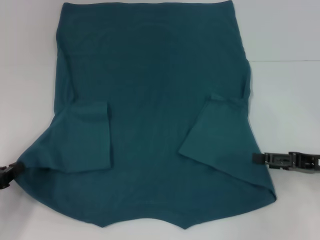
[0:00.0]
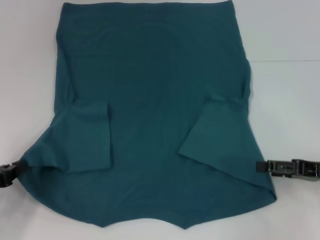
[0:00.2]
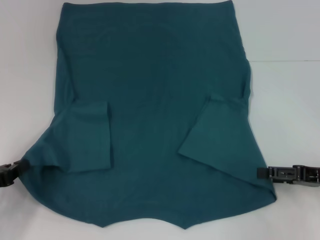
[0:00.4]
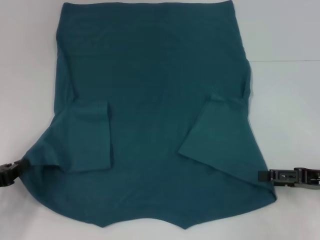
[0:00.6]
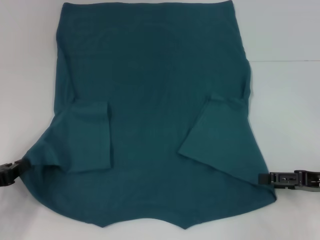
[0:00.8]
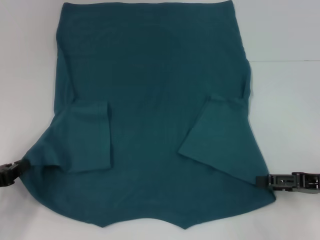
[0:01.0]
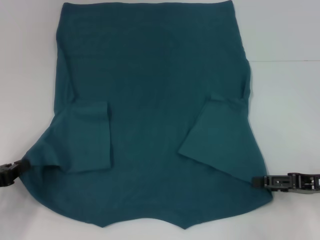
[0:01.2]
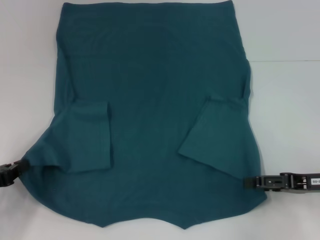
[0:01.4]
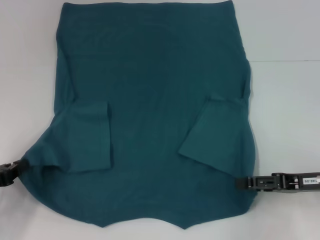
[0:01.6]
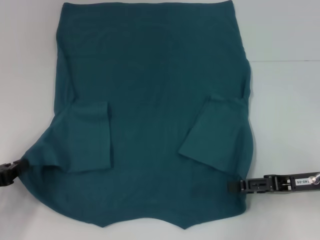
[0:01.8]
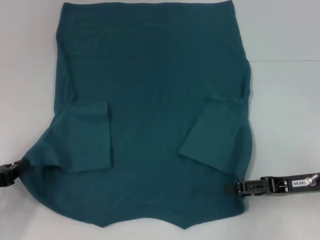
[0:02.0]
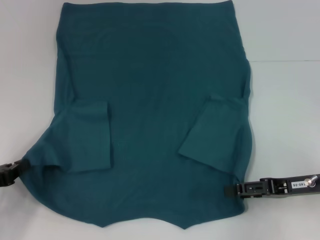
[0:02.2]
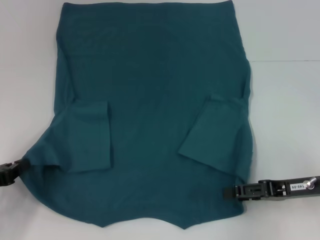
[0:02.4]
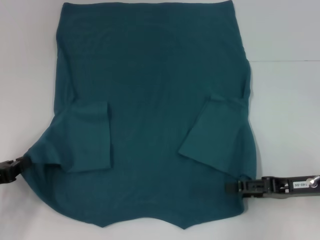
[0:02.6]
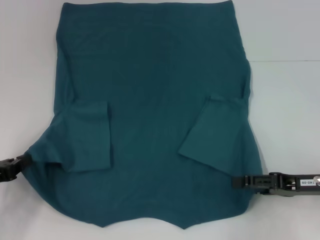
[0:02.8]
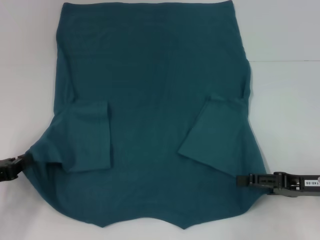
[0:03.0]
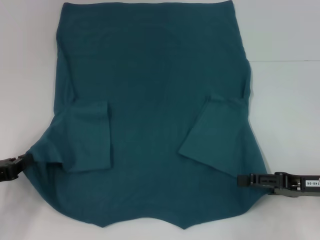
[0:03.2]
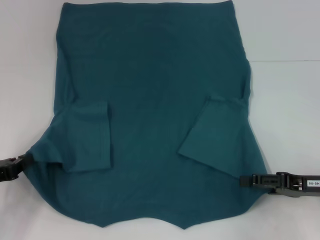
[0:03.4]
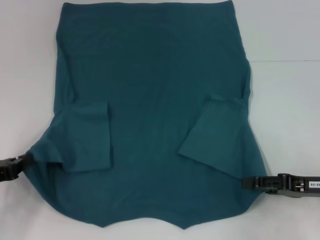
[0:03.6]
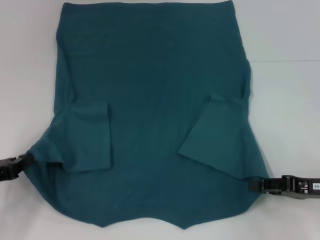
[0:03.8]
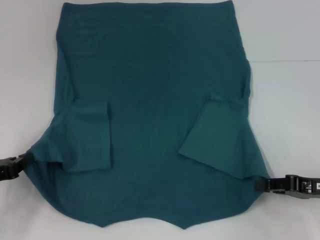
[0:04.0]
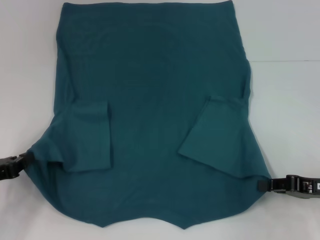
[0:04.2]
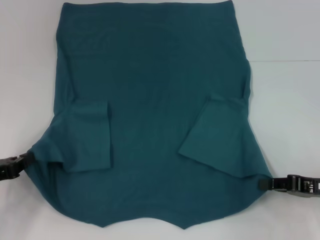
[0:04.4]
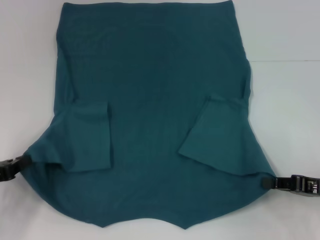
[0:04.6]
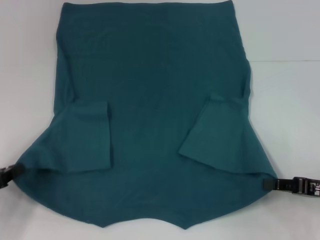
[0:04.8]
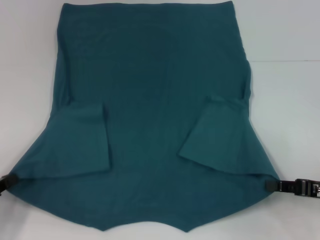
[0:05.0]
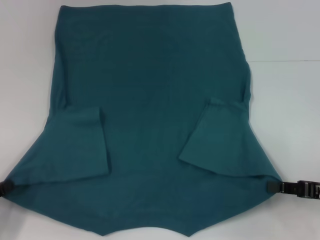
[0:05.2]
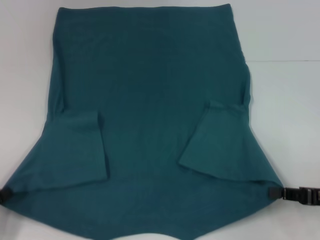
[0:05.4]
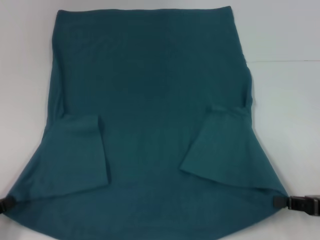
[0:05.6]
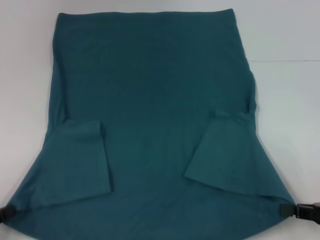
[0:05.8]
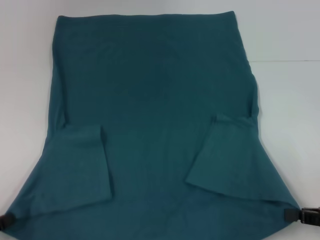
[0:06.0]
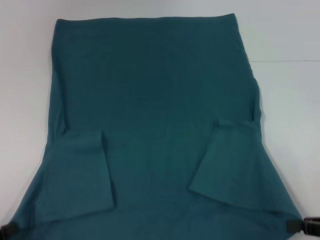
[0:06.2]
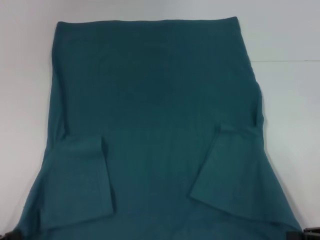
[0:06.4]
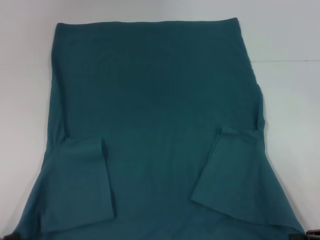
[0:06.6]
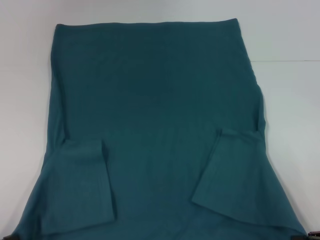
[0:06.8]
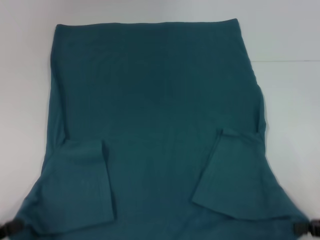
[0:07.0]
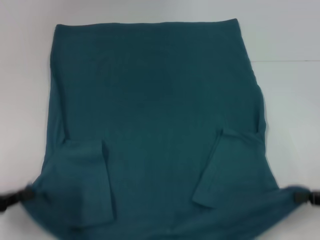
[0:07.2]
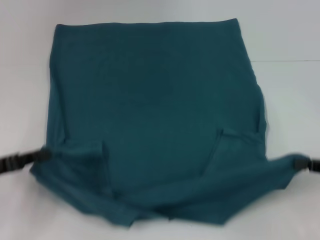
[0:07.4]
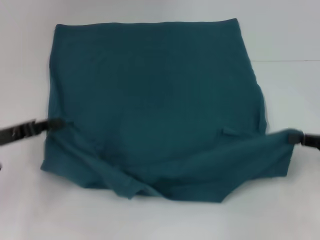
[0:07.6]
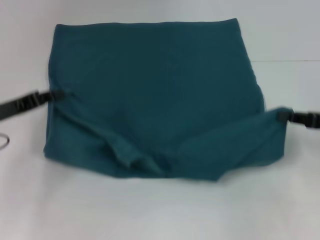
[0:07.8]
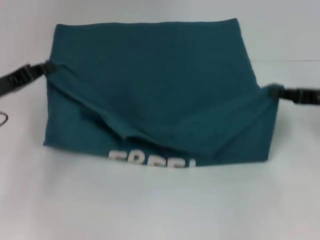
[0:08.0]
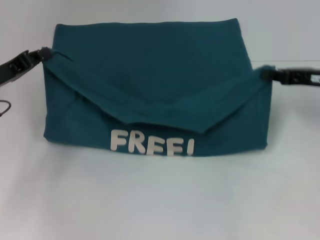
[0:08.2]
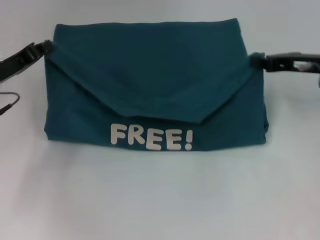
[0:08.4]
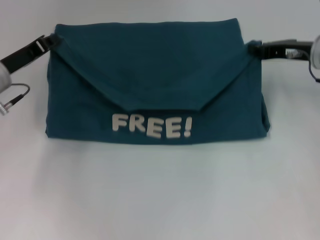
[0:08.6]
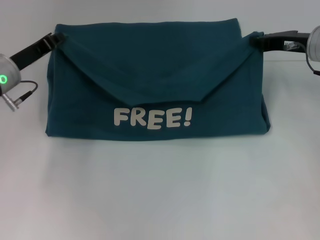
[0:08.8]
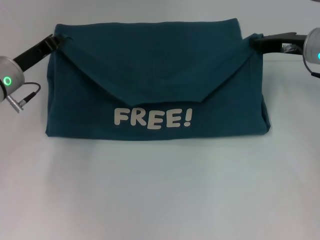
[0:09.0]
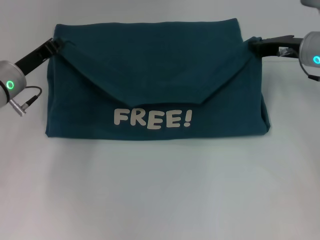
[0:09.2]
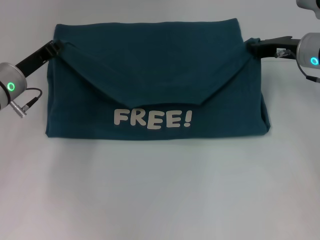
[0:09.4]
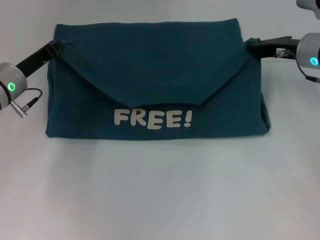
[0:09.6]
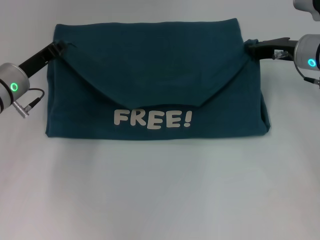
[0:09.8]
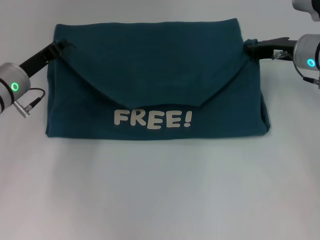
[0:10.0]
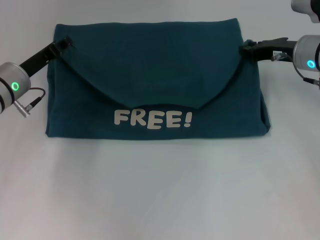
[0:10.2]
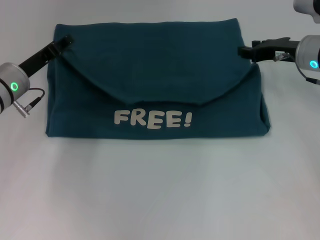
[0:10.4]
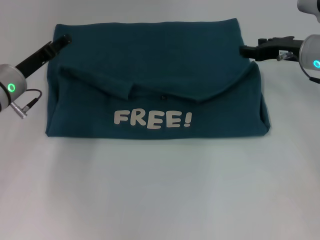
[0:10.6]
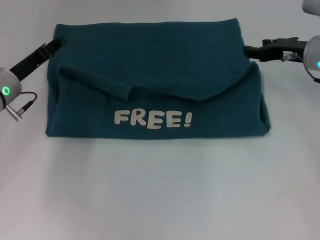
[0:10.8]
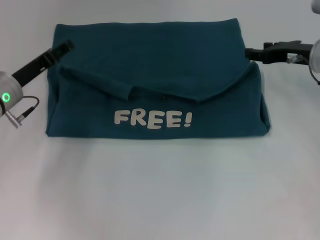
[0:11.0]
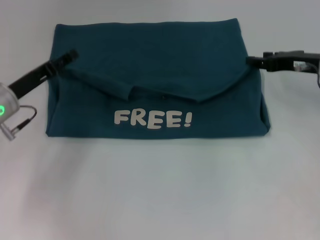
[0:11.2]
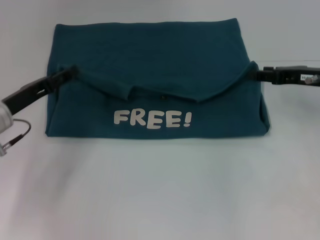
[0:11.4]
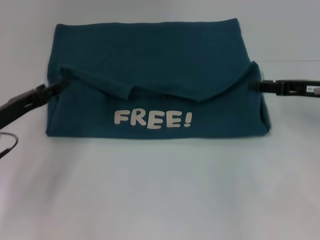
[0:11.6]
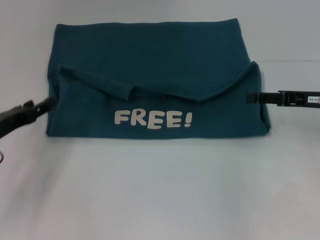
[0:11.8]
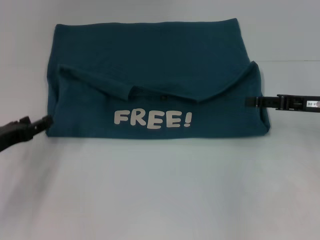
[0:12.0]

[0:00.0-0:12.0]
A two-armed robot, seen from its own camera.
Step, 0:00.0 to 0:04.6: Grab the bottom right corner with your right hand.
Step, 0:04.8 to 0:10.6: Fold the clothes to the left.
Step, 0:04.8 to 0:10.6: Fold the clothes to the right.
0:00.0 to 0:03.0: The grippers make only small movements.
0:03.0 to 0:04.4: The right gripper closes.
0:04.4 to 0:06.0: The left gripper heads backward, covering some 10 cm. Meanwhile the right gripper moves roughly 5 cm.
0:06.0 to 0:07.6: The left gripper moves forward, about 15 cm; the right gripper travels forward by about 5 cm.
0:07.6 to 0:09.0: The right gripper is displaced forward and to the left by roughly 20 cm; the left gripper is displaced forward and to the right by about 10 cm.
0:09.0 to 0:10.4: There are only small adjustments of the grippers.
0:10.4 to 0:12.0: The right gripper heads backward and to the right, covering approximately 10 cm. The left gripper heads backward and to the left, covering approximately 15 cm, and opens.

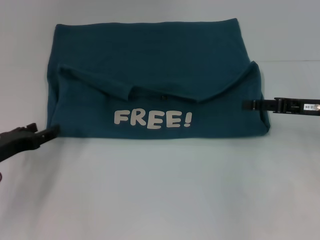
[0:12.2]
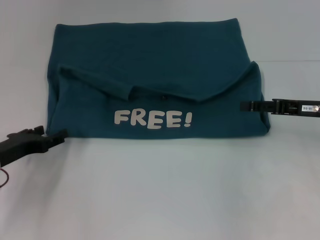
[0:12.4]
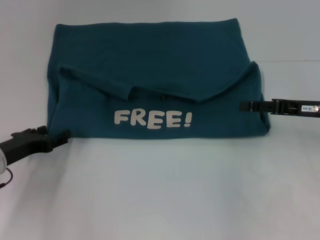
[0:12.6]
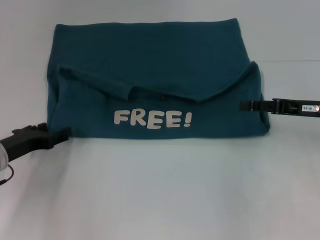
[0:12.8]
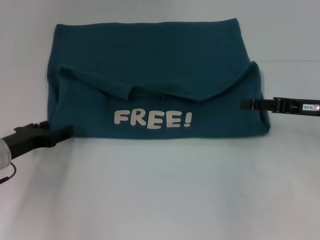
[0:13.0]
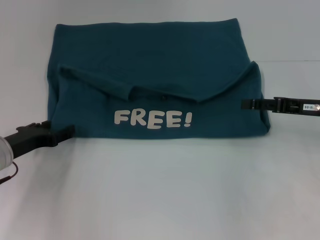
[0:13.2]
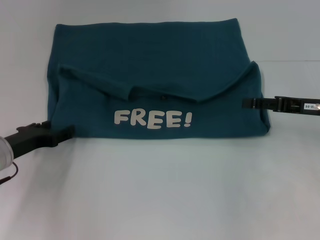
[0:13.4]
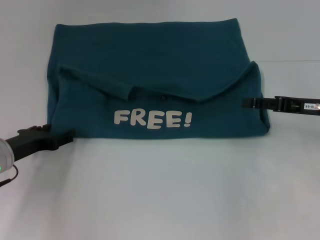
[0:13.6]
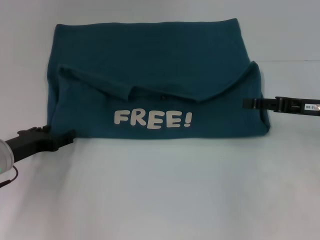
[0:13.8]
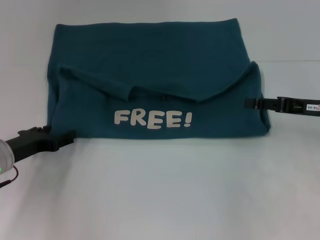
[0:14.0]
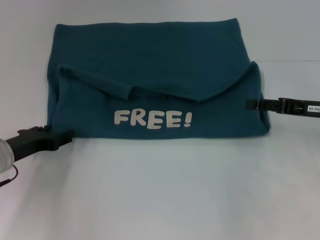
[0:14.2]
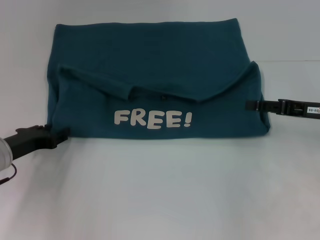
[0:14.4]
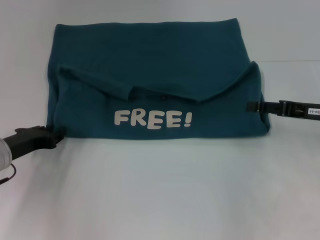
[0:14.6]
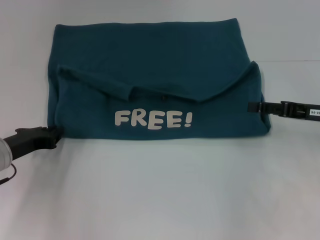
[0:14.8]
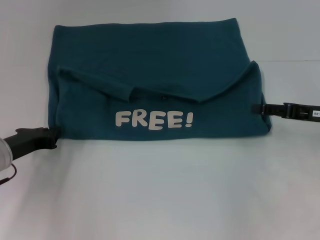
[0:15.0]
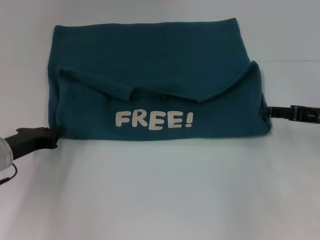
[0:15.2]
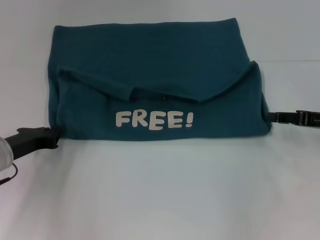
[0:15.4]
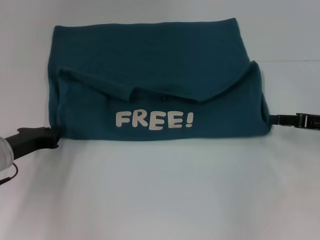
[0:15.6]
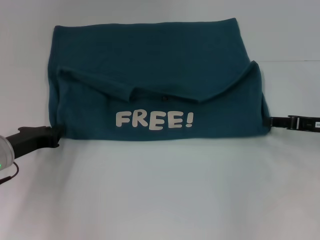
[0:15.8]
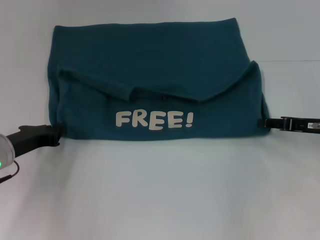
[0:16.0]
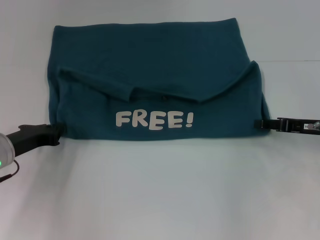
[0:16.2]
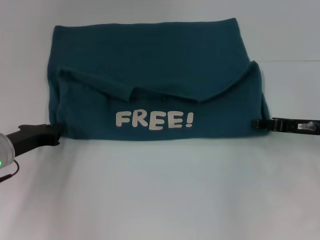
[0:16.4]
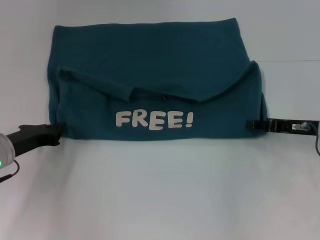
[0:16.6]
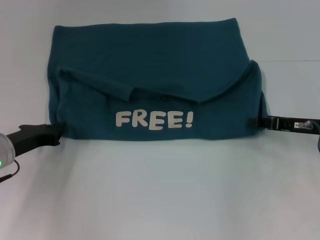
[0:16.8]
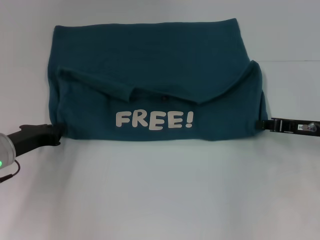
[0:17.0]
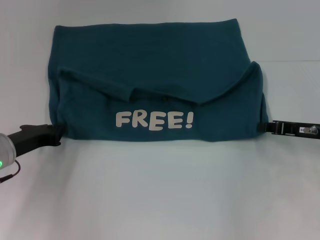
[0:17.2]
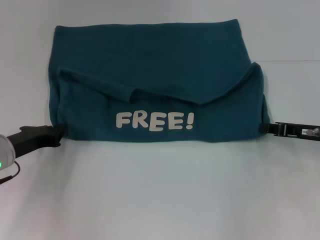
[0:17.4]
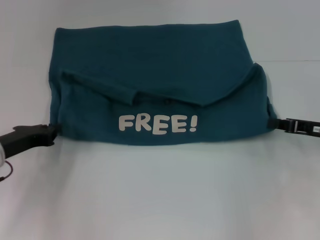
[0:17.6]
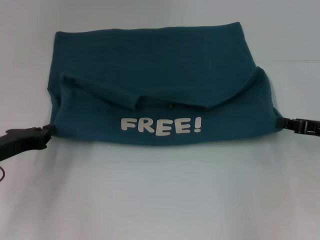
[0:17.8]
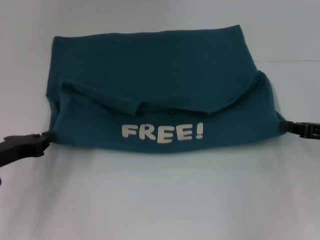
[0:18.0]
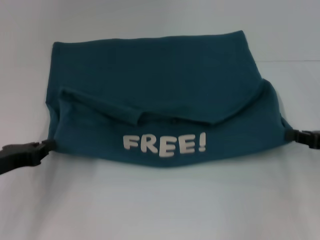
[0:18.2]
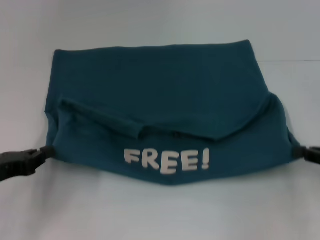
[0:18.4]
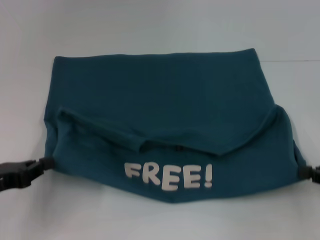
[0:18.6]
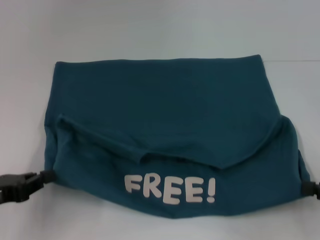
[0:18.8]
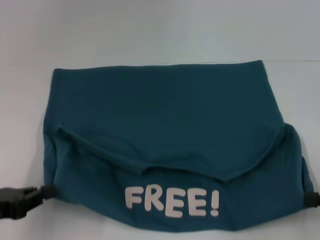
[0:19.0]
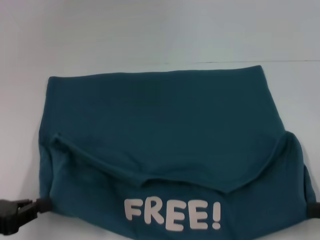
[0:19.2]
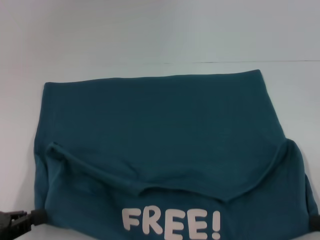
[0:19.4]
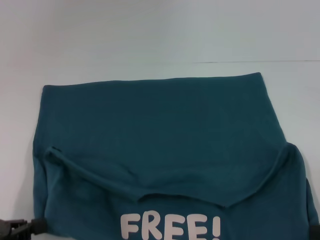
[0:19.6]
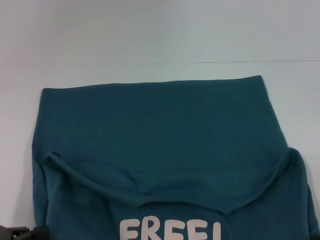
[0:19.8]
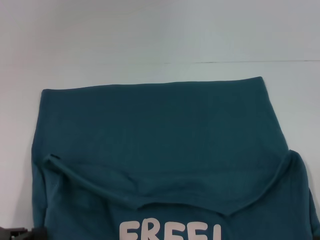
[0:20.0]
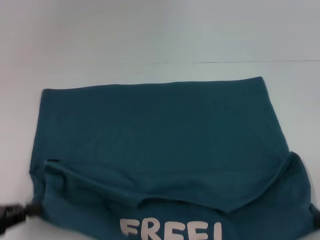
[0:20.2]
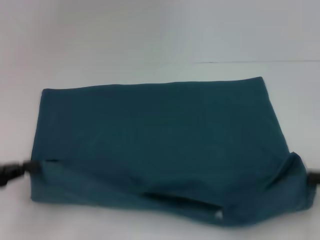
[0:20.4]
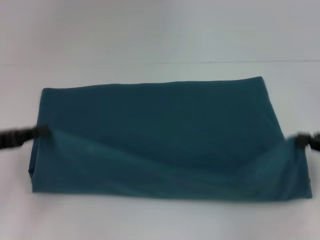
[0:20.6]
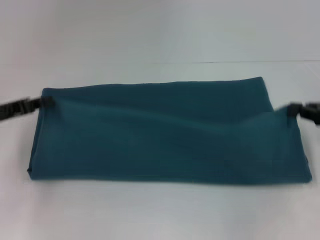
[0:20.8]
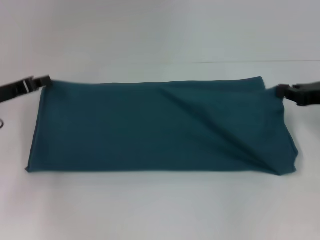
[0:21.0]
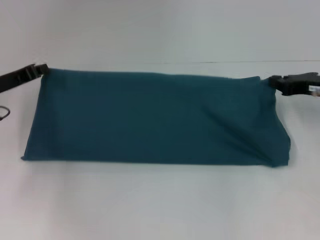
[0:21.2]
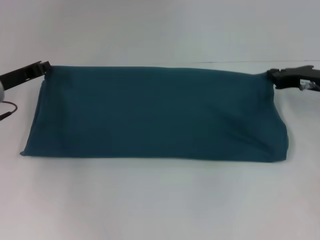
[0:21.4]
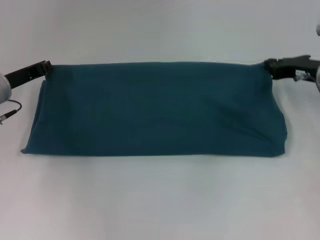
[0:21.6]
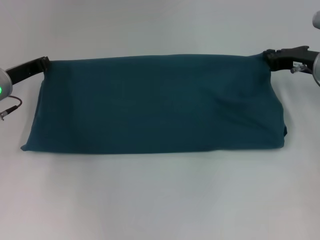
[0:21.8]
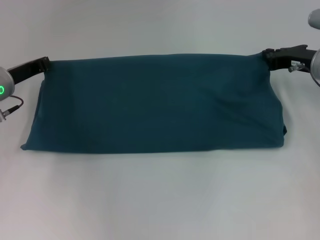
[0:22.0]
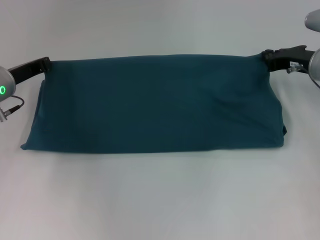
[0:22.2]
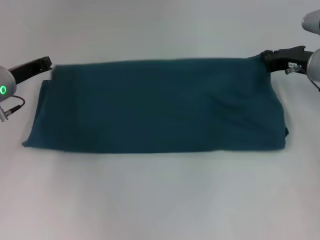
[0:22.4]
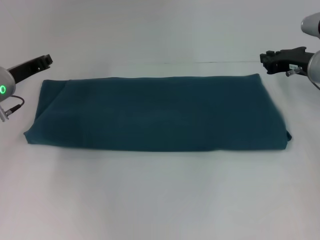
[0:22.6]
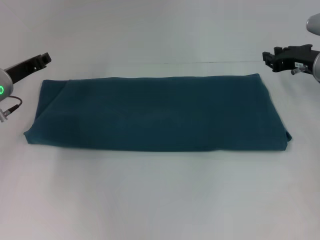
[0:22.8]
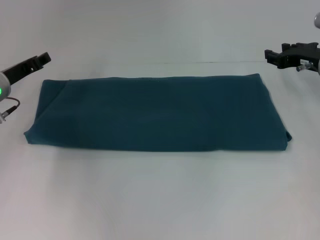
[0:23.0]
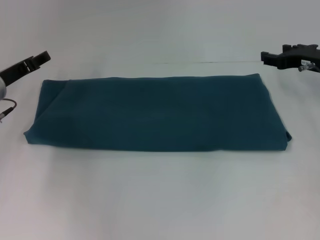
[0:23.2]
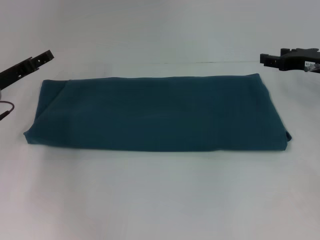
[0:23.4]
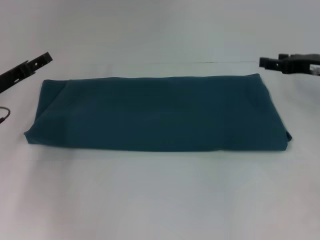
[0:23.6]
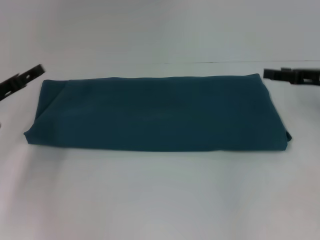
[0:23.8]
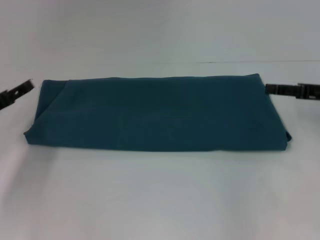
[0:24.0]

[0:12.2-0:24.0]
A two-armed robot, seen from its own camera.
Step, 0:12.2 to 0:20.0: Pull the clothes with your left hand.
Step, 0:12.2 to 0:20.0: Pull the clothes with your right hand.
Step, 0:20.2 to 0:22.6: Fold the clothes to the left.
Step, 0:20.2 to 0:22.6: Fold the clothes to the right.
0:12.2 to 0:13.6: There are only small adjustments of the grippers.
0:13.6 to 0:15.2: The left gripper closes.
0:15.2 to 0:16.6: The right gripper shifts by roughly 5 cm.
0:16.6 to 0:18.2: The right gripper moves to the right and backward, about 10 cm, and closes its fingers; the left gripper moves backward, about 5 cm.
0:18.2 to 0:19.6: Both grippers travel together backward, some 10 cm.
0:19.6 to 0:21.0: Both grippers move forward, roughly 20 cm.
0:21.0 to 0:22.6: The right gripper shifts approximately 10 cm forward and to the left. The left gripper heads forward, covering roughly 5 cm.
0:22.6 to 0:24.0: The right gripper moves backward and to the right, roughly 10 cm, and opens up. Meanwhile the left gripper heads backward and to the left, covering about 10 cm, and opens.
